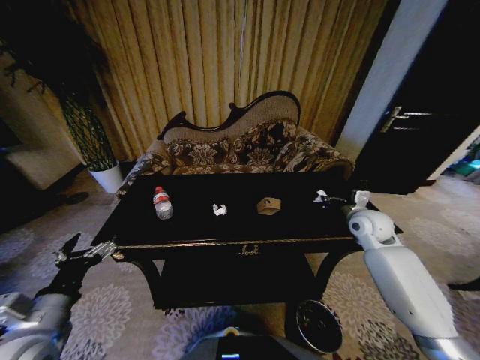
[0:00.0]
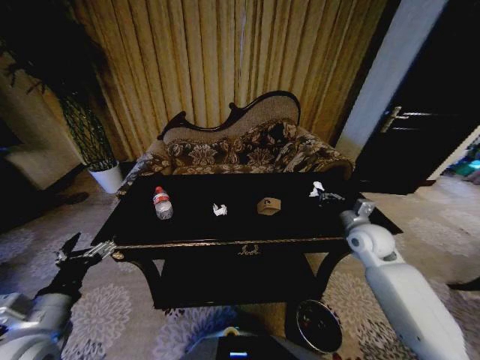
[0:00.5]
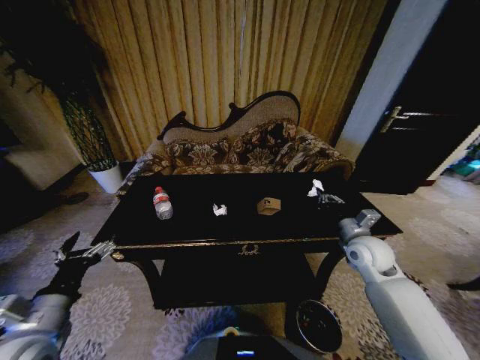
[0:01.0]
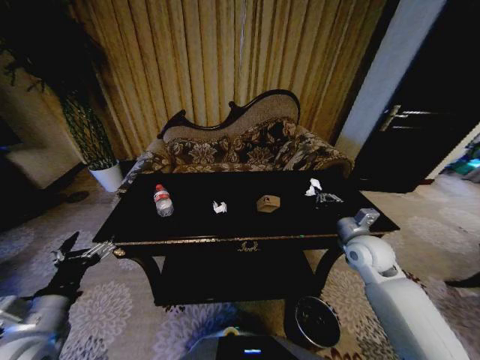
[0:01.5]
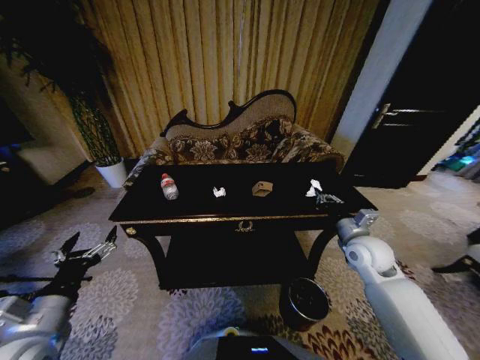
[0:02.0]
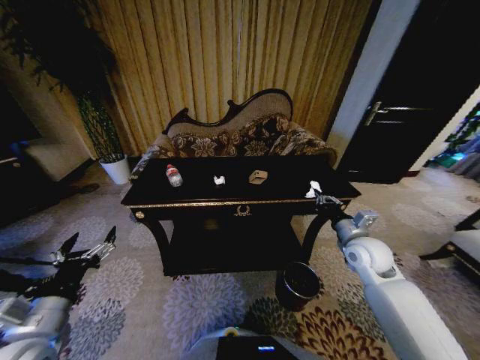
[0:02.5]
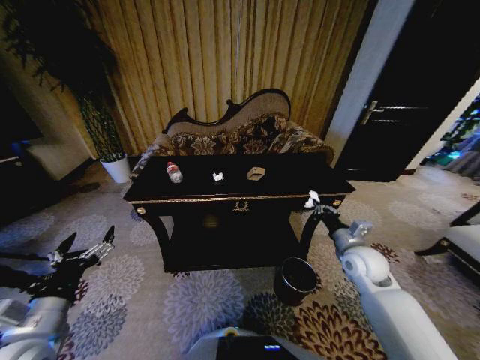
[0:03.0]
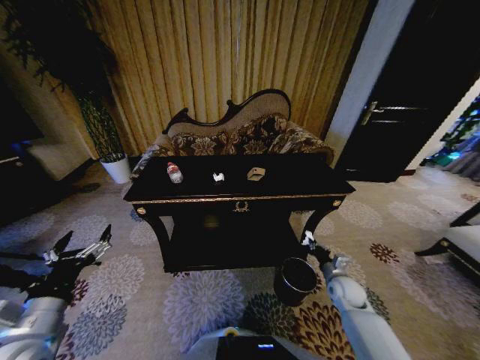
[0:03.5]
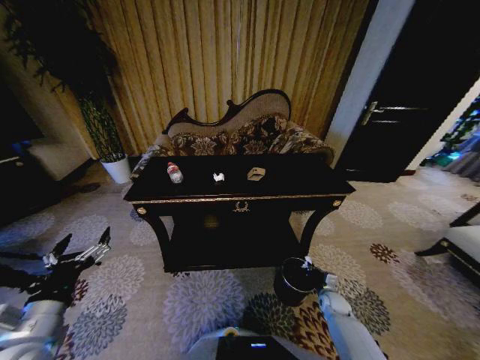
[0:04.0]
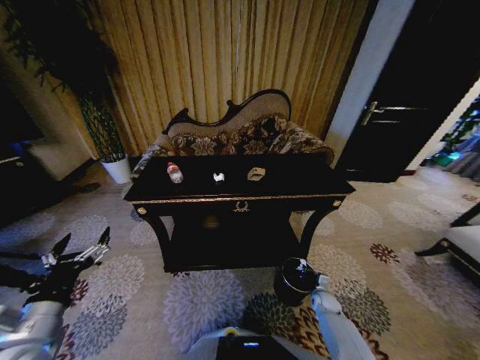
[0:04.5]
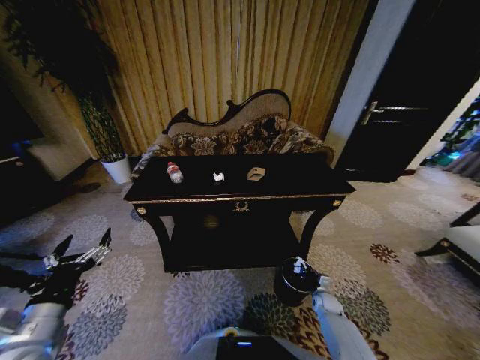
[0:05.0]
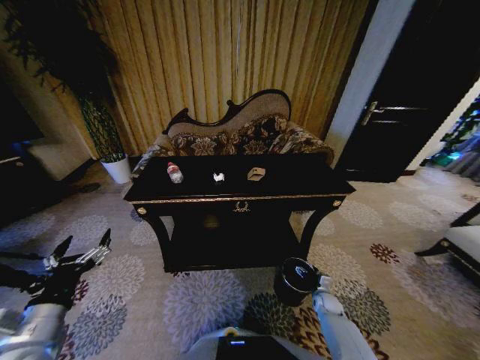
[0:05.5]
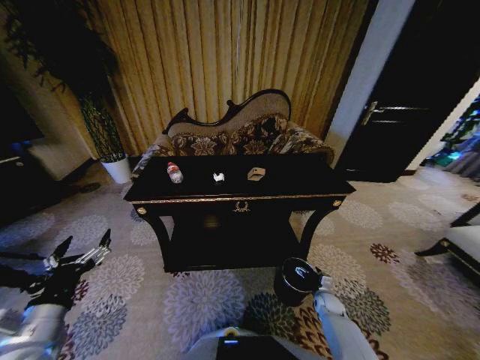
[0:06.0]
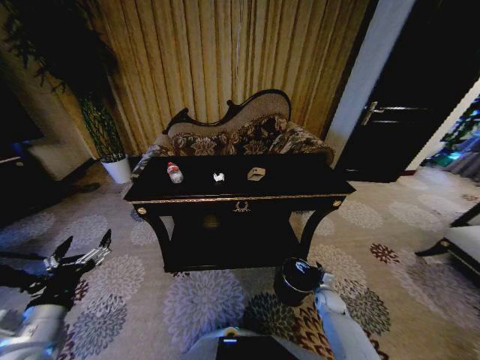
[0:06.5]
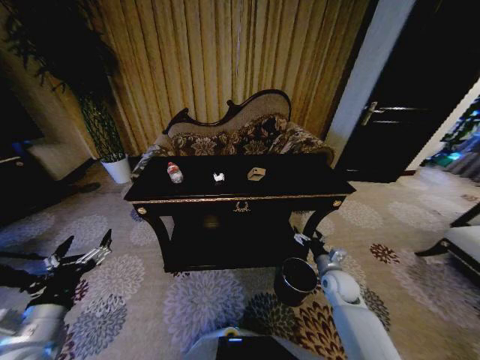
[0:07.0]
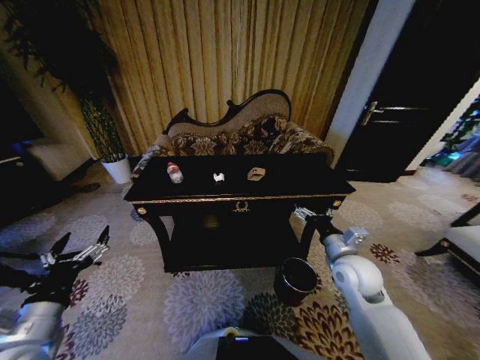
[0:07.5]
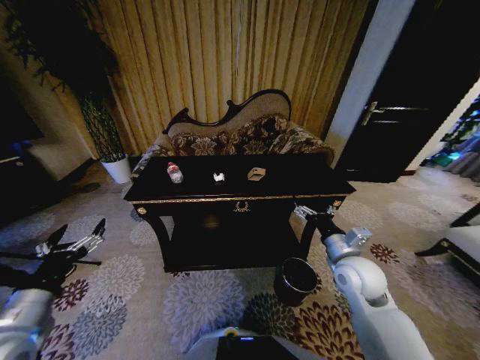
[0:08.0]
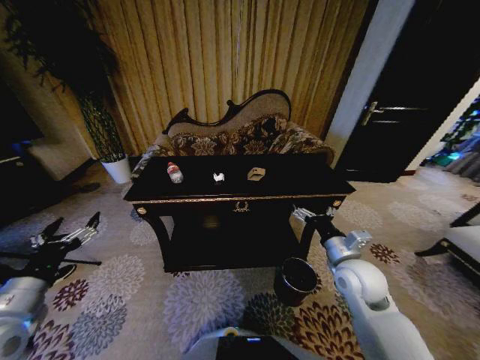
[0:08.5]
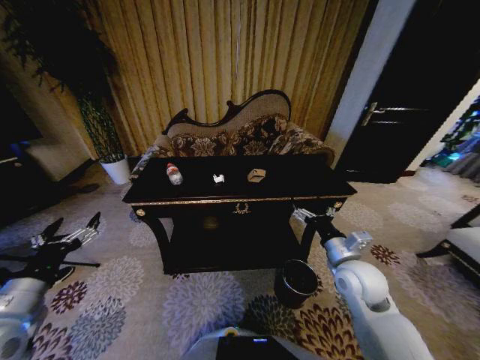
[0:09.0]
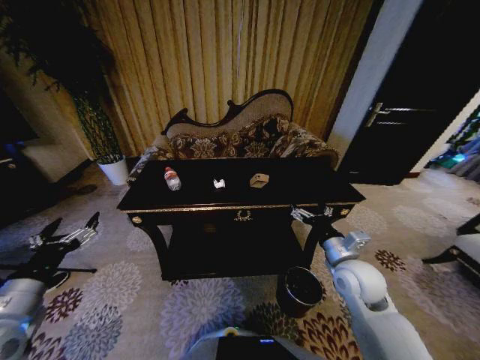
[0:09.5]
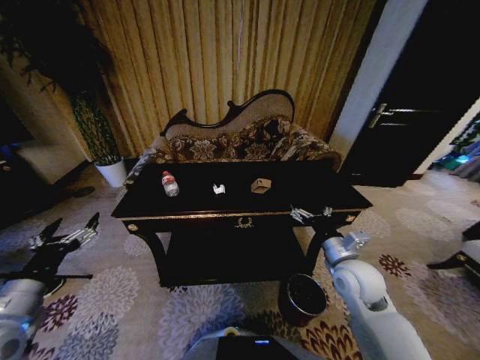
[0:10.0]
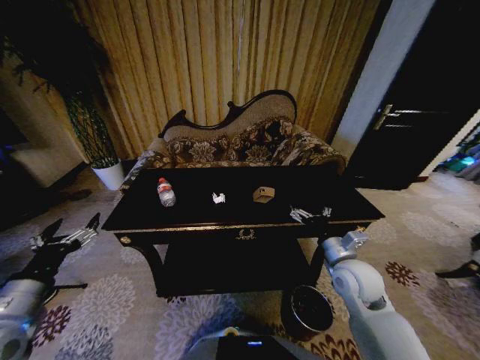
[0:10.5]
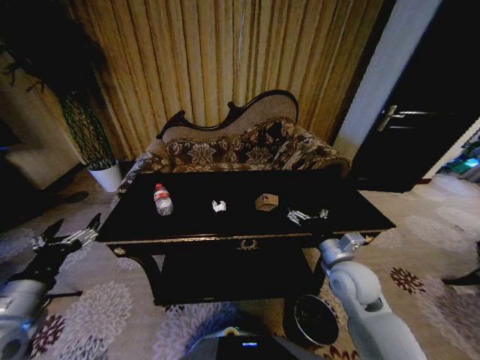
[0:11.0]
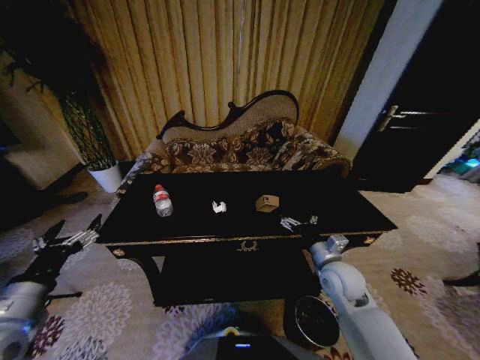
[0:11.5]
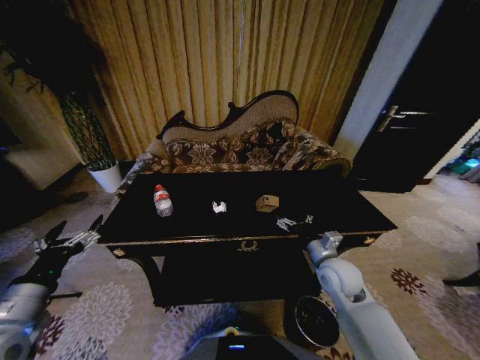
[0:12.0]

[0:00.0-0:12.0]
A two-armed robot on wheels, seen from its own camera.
Task of the whole recording: Move to the front of the table and place the trash on the table into the trash bin.
0:00.0 to 0:02.0: The right gripper travels backward by some 5 cm.
0:02.0 to 0:04.0: The right gripper heads downward, covering approximately 30 cm.
0:04.0 to 0:06.0: The right gripper opens.
0:06.0 to 0:08.0: The right gripper goes roughly 35 cm upward.

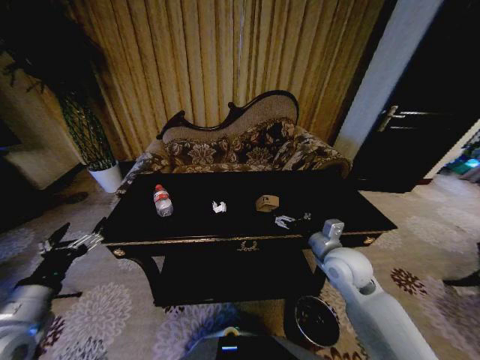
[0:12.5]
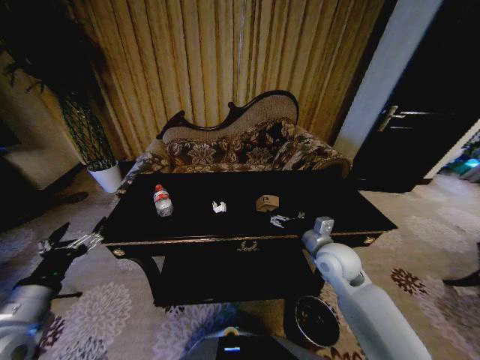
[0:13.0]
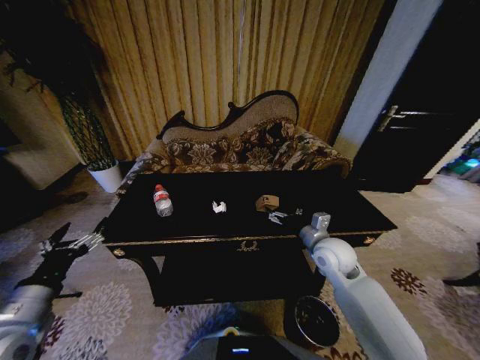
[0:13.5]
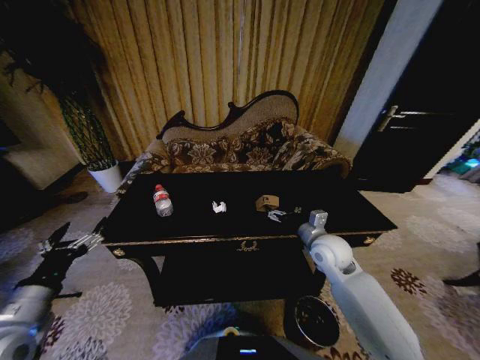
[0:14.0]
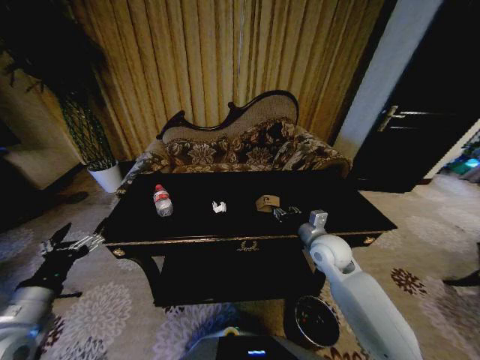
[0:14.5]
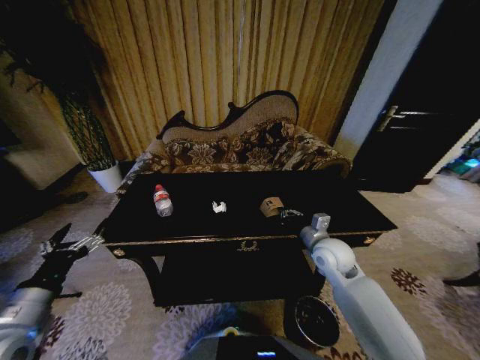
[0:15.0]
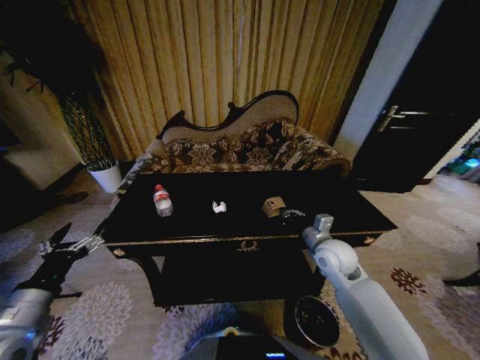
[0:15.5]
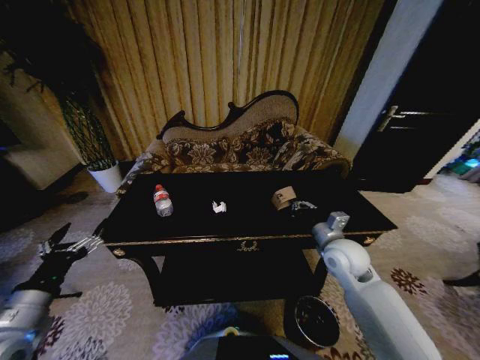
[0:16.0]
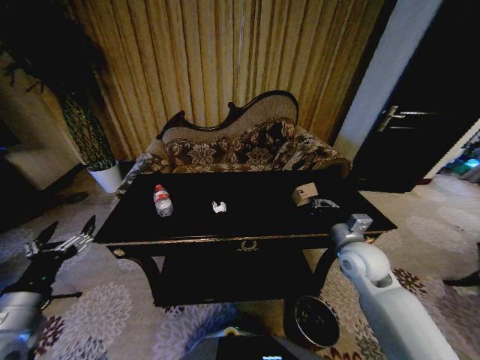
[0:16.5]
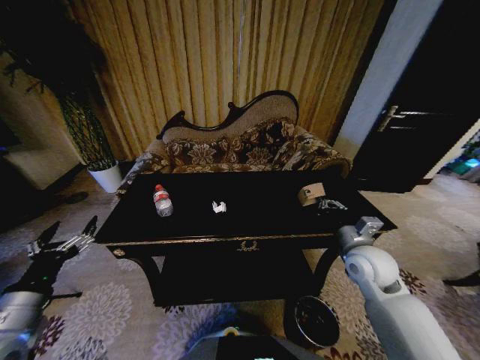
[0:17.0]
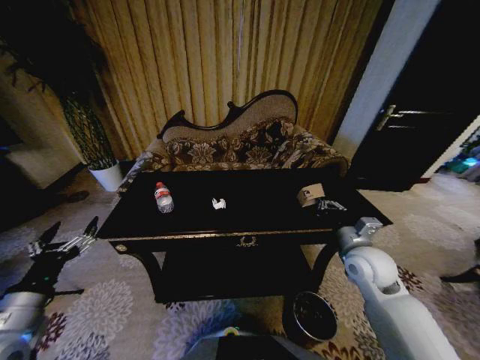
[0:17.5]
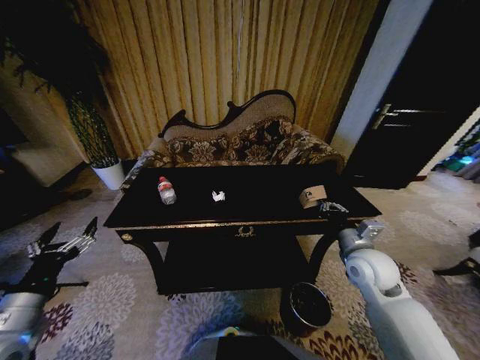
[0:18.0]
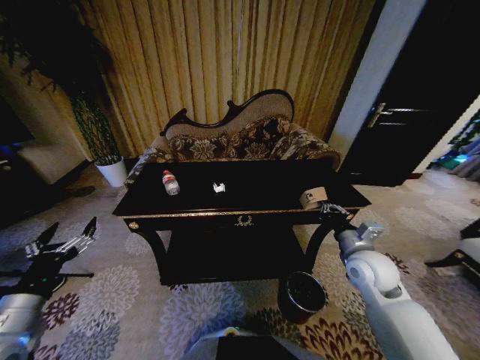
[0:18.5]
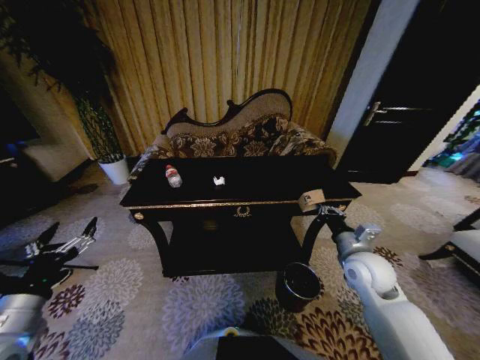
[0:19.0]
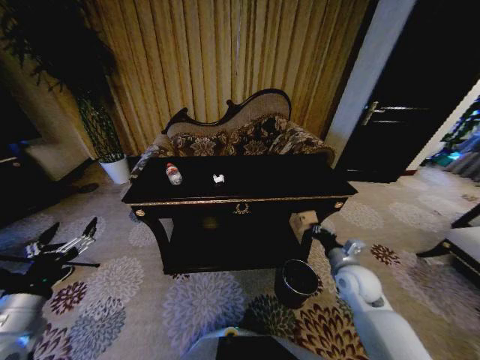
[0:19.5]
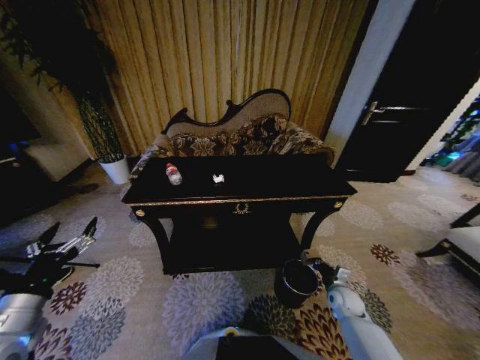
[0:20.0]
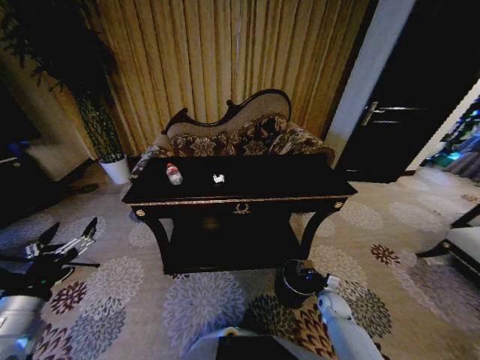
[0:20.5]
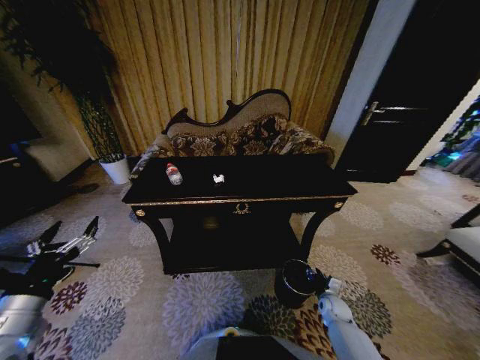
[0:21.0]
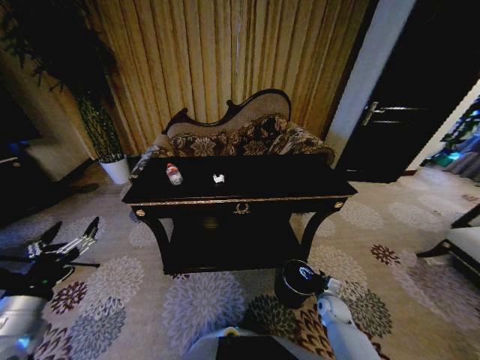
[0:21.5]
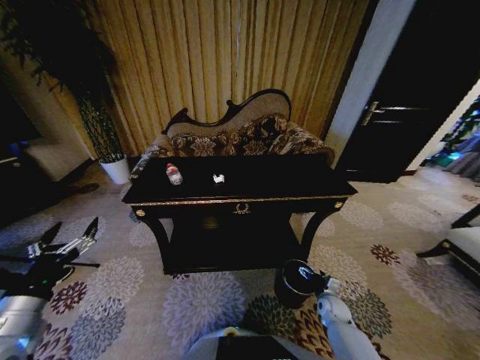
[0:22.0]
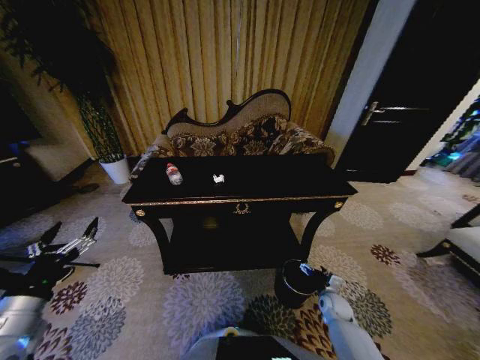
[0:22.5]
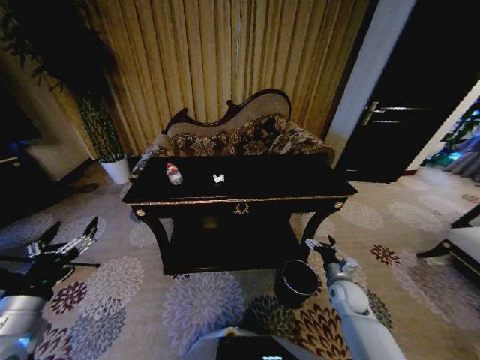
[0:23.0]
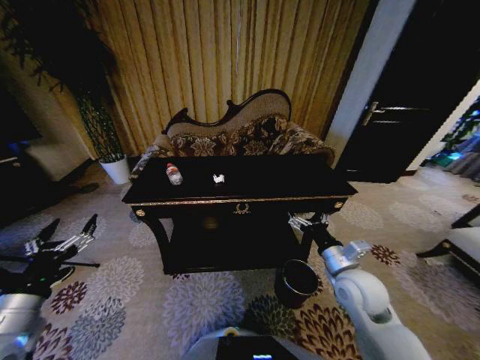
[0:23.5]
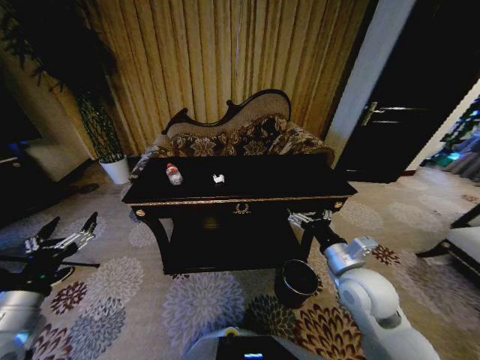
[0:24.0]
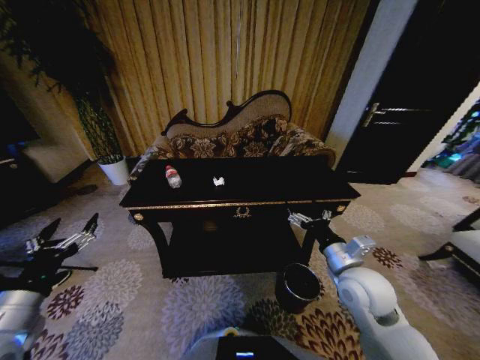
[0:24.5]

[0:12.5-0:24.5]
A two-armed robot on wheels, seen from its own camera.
Task of the whole recording: Move to the front of the table and place the trash on the table into the trash bin.
0:12.5 to 0:14.5: The right gripper travels forward by about 5 cm, and closes.
0:14.5 to 0:16.5: The right gripper moves to the right, approximately 5 cm, and closes its fingers.
0:18.5 to 0:20.5: The right gripper goes some 30 cm downward.
0:22.5 to 0:24.5: The right gripper moves upward, approximately 30 cm.

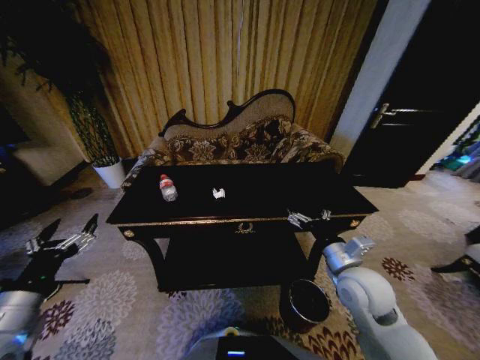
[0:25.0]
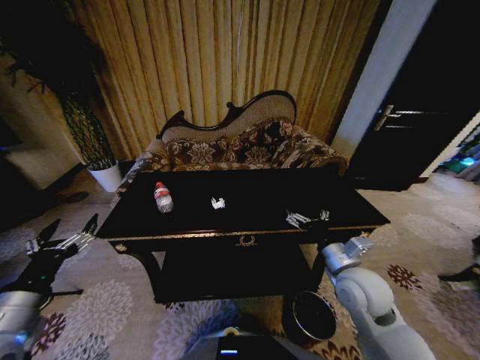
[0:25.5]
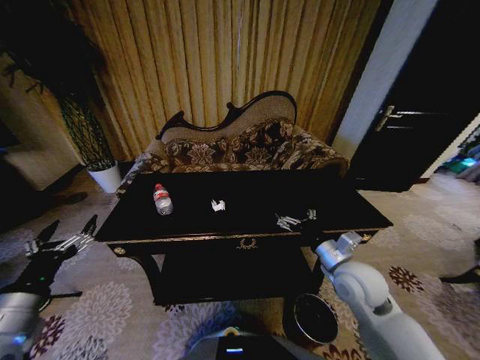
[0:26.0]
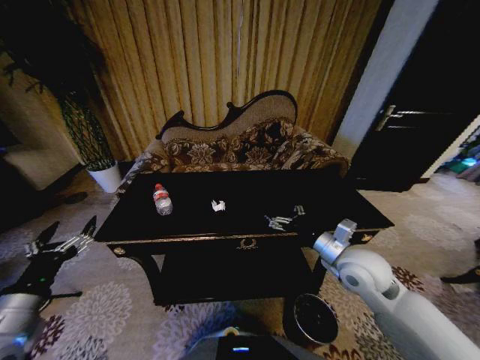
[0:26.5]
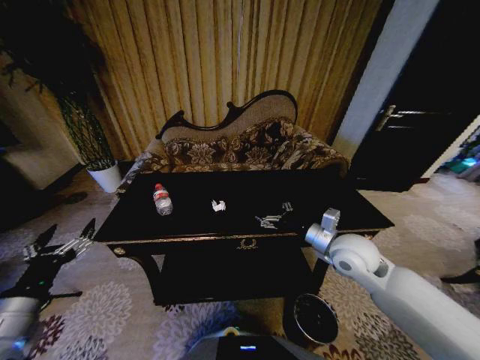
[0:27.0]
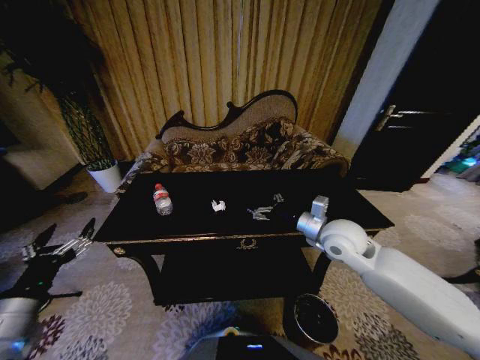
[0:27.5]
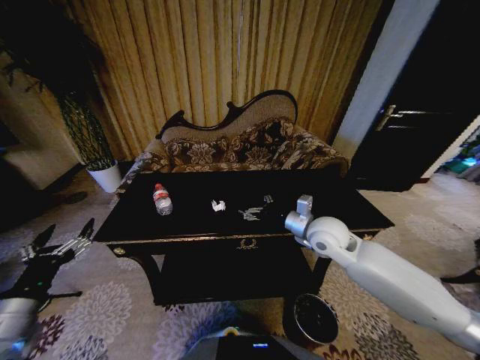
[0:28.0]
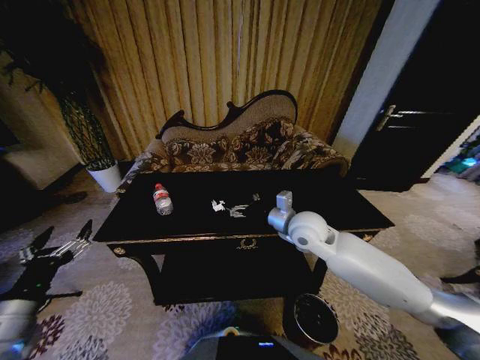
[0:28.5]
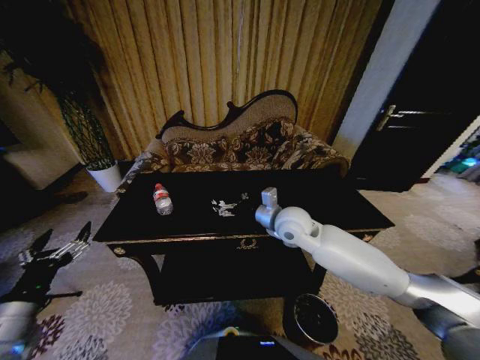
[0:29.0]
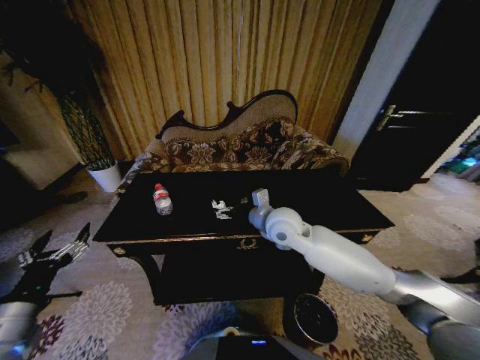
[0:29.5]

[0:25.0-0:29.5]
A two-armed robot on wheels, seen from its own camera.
Task of the whole recording: Move to the front of the table and place the trash on the table into the trash bin.
0:25.0 to 0:27.0: The right gripper heads forward, covering approximately 5 cm.
0:27.0 to 0:29.5: The right gripper heads to the left and forward, covering approximately 15 cm.
